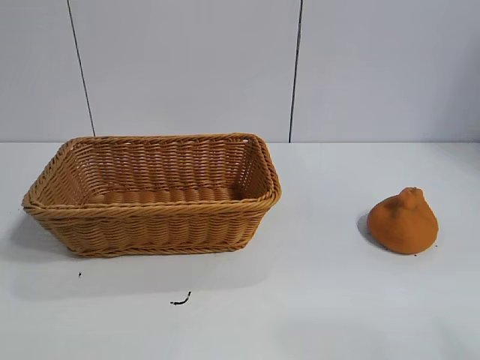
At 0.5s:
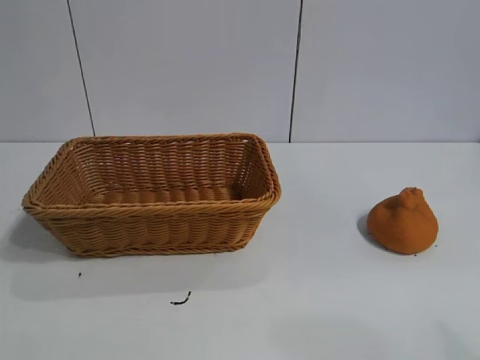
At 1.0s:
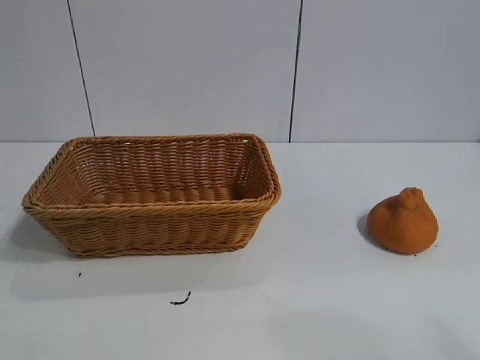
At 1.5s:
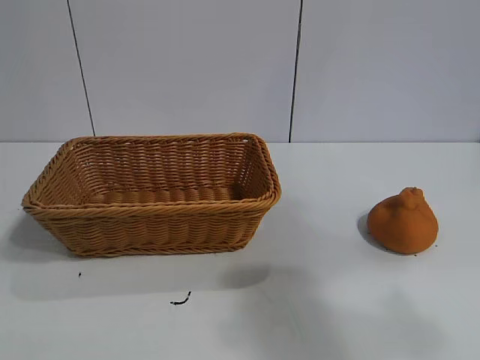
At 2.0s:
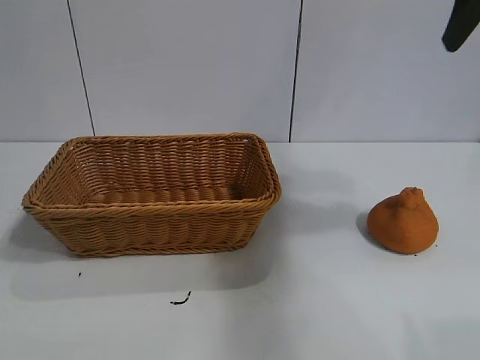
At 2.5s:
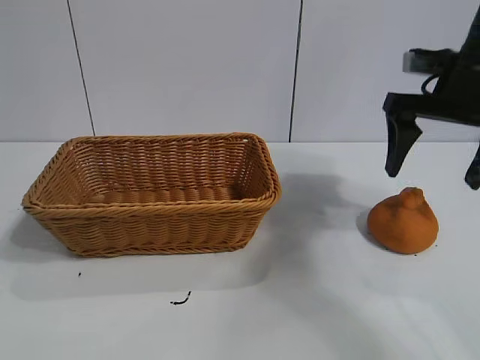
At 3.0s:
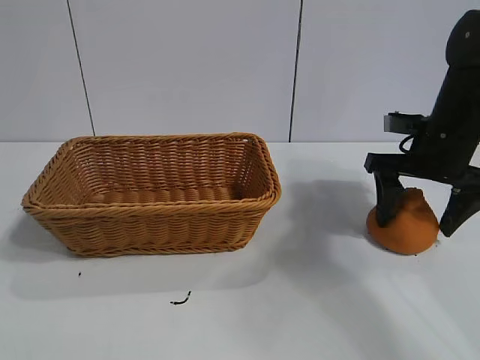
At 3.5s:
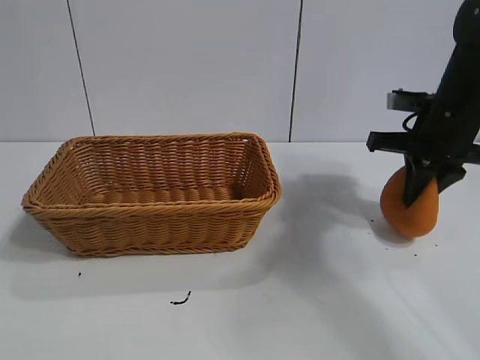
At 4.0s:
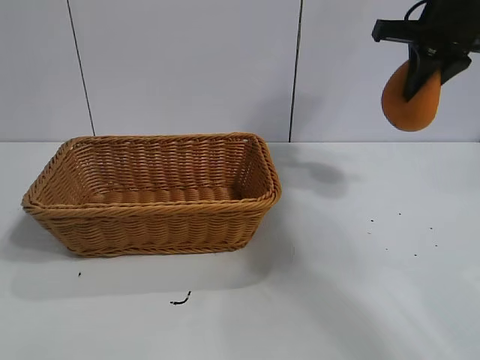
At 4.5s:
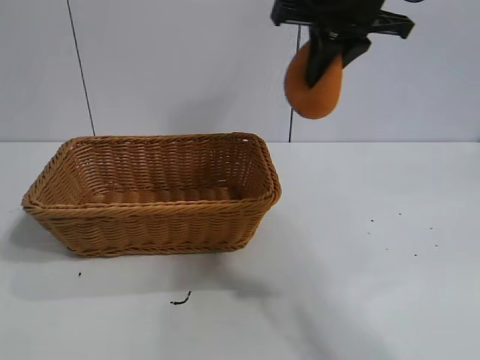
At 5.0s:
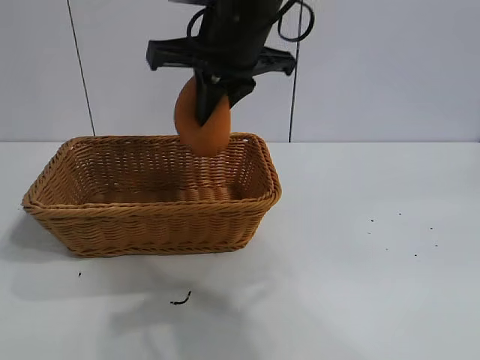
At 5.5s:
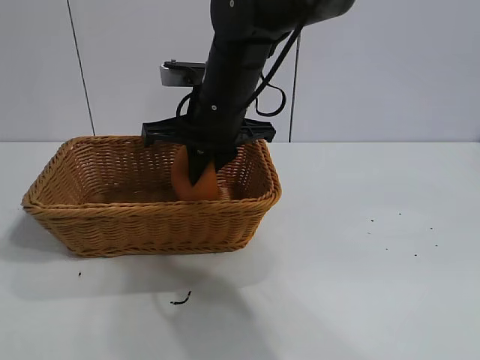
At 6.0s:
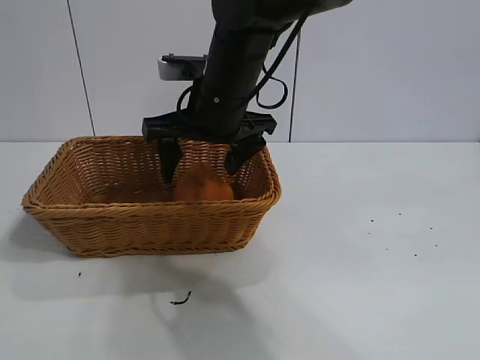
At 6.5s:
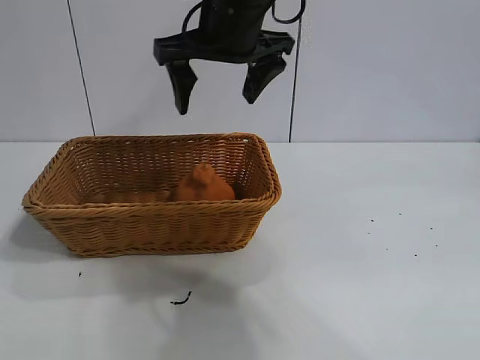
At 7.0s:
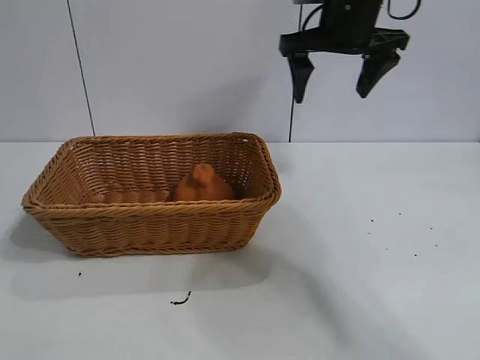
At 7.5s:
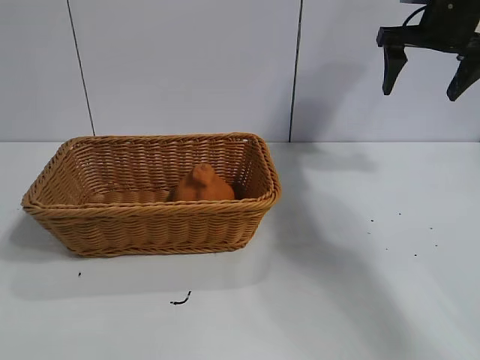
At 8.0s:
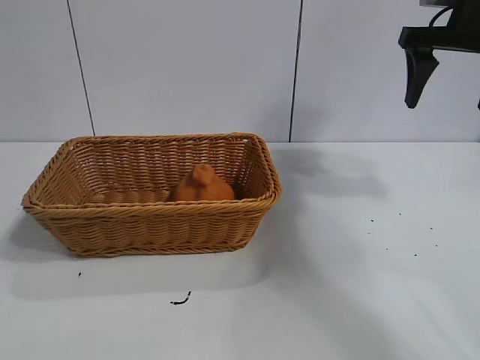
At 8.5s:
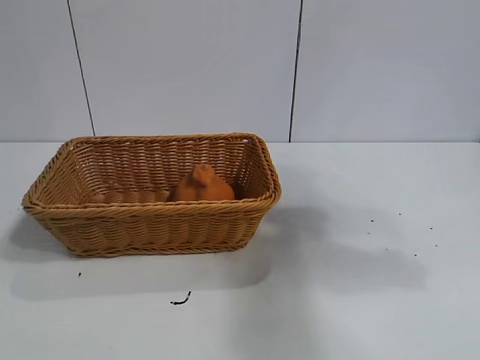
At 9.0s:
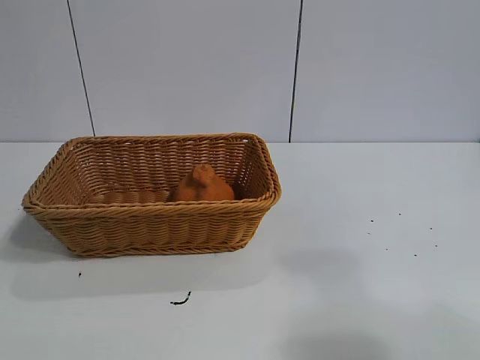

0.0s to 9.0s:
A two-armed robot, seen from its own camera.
Task of the whole recording: pick up the orange and put it into the basket.
Step, 1.0s to 3.0s: Grasp the orange with right gripper.
Step, 3.5s to 6.0s: Place the orange in the basket with right gripper.

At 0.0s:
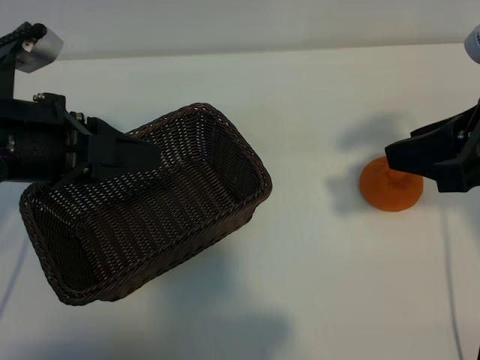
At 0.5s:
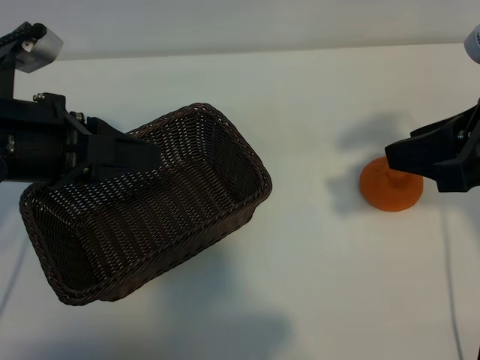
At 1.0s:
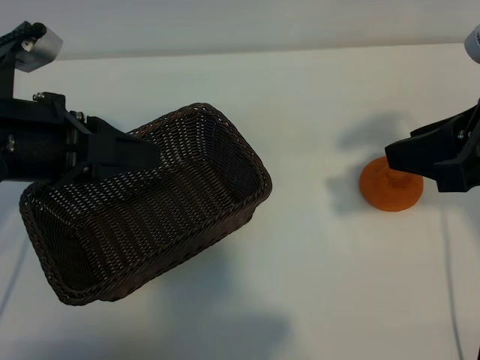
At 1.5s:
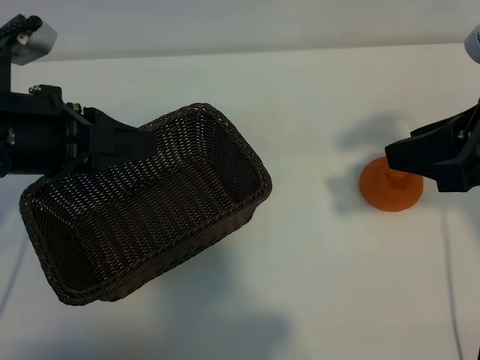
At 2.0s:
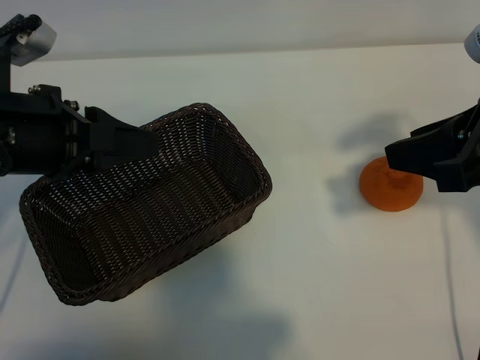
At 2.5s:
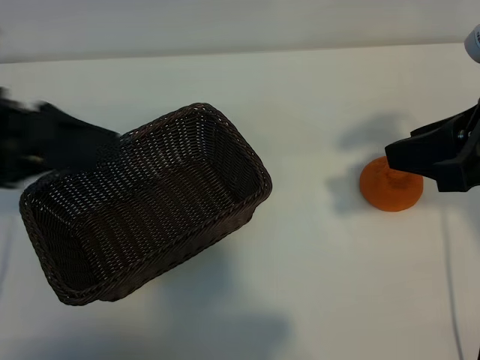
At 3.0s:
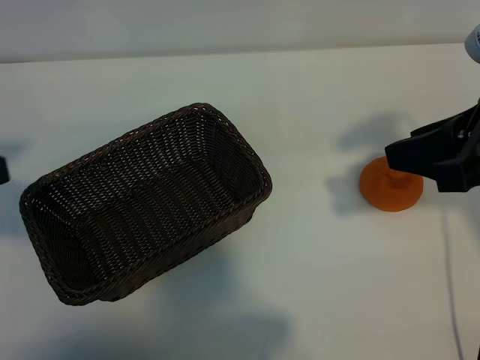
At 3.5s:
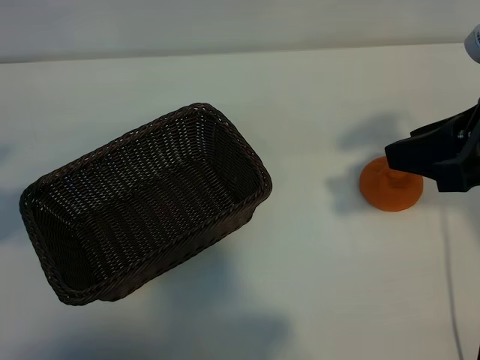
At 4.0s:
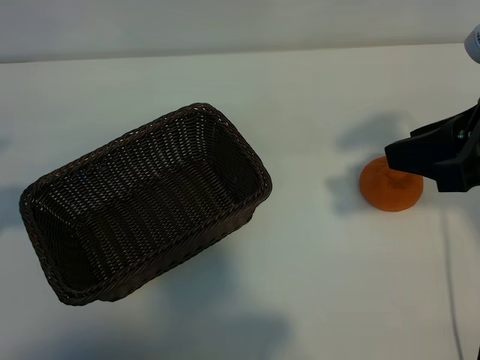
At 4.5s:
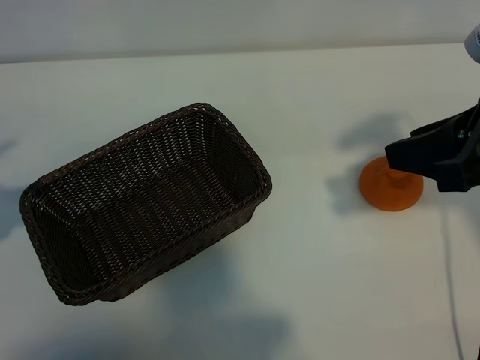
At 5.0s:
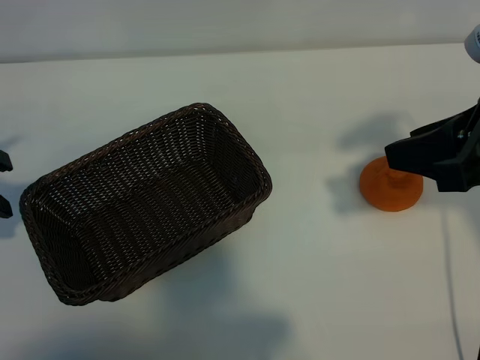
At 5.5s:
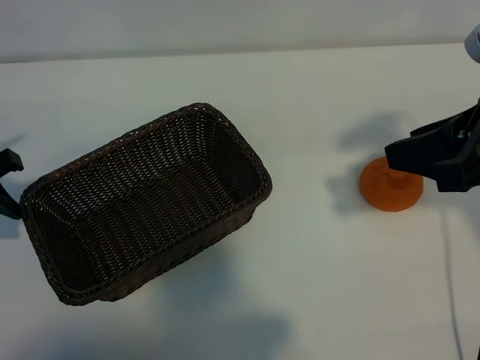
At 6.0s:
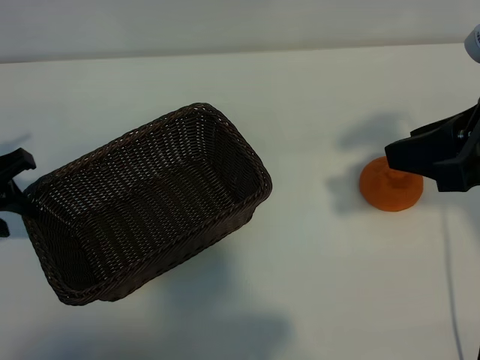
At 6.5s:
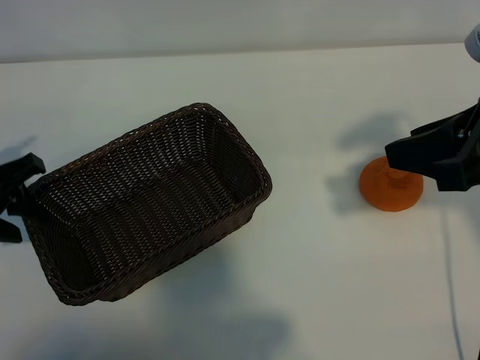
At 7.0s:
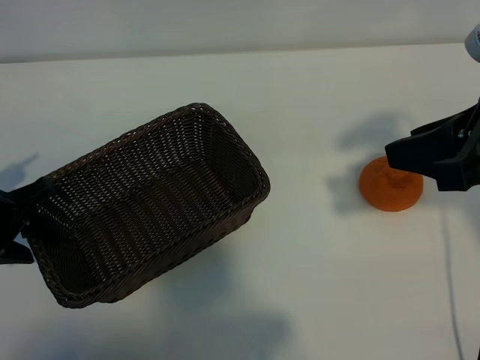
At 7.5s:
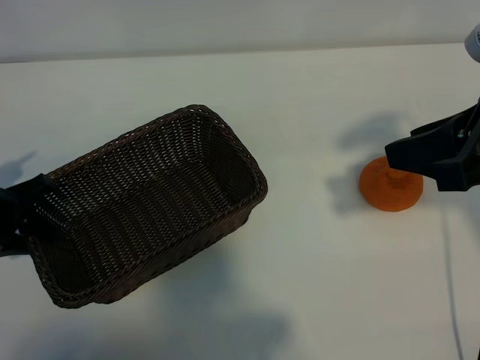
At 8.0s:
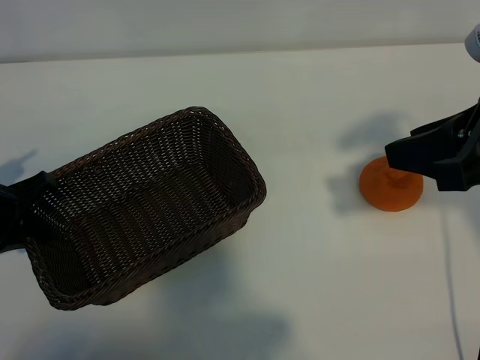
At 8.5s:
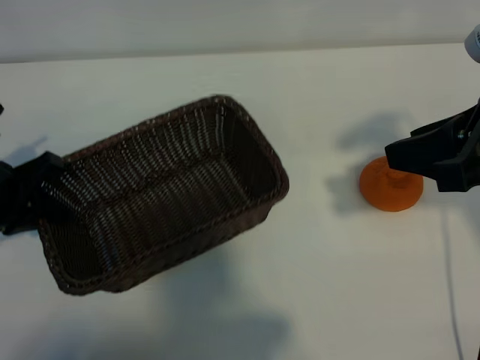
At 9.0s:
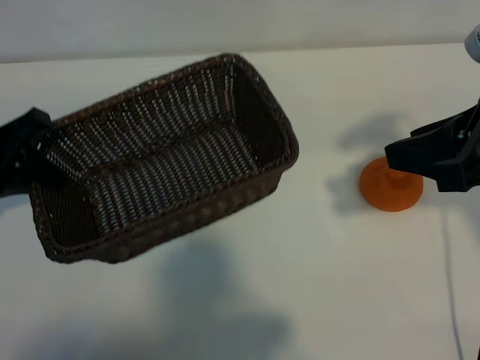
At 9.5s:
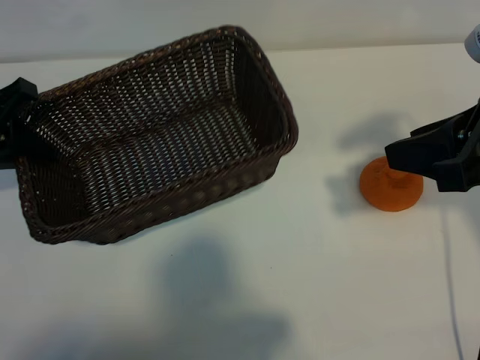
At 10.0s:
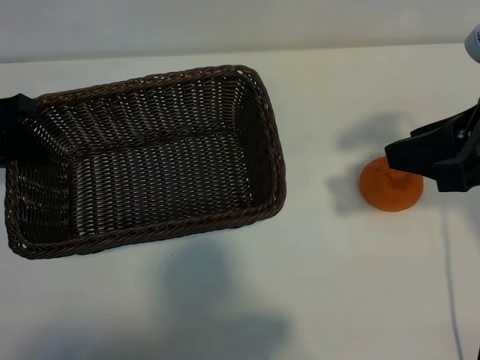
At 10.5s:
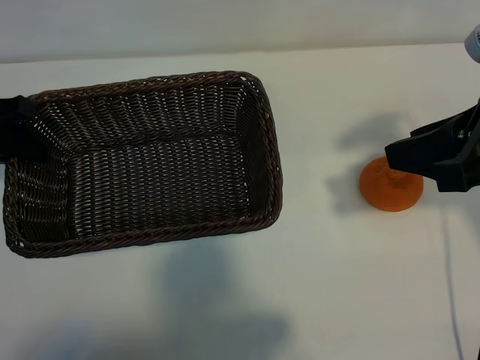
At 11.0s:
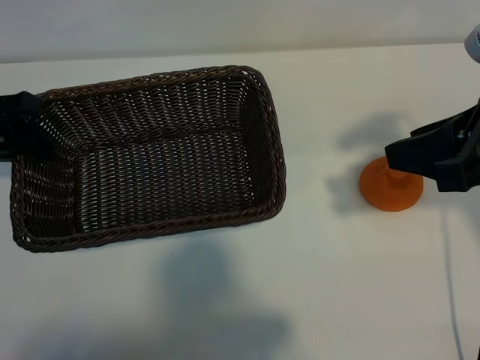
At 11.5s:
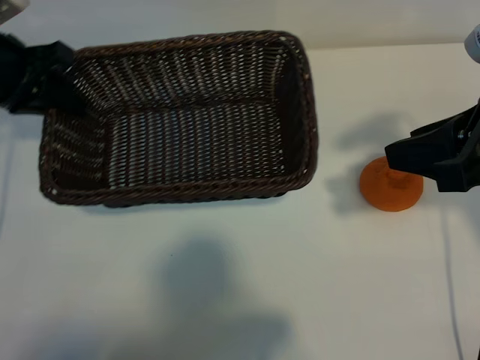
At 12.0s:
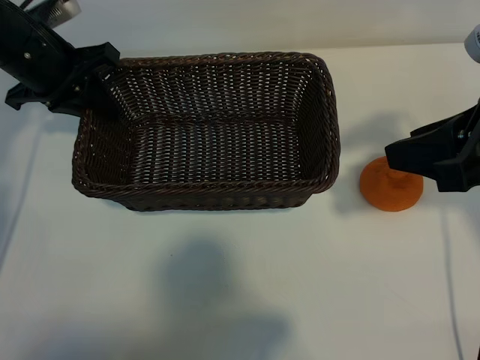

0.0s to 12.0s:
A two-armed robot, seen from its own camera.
Task of the whole recording: pick up the orange and put it into the basket.
Step, 1.0s to 7.5s: Grasp the basket with left gripper.

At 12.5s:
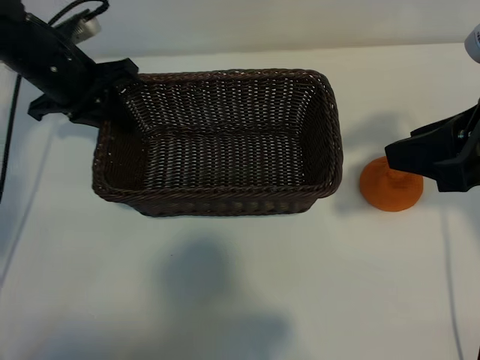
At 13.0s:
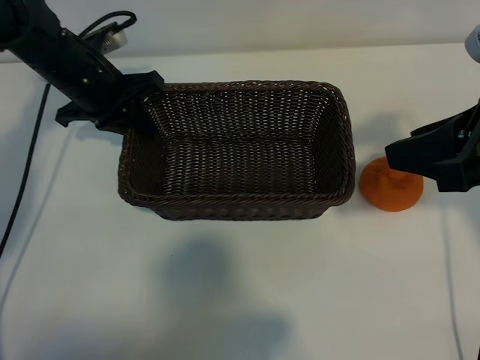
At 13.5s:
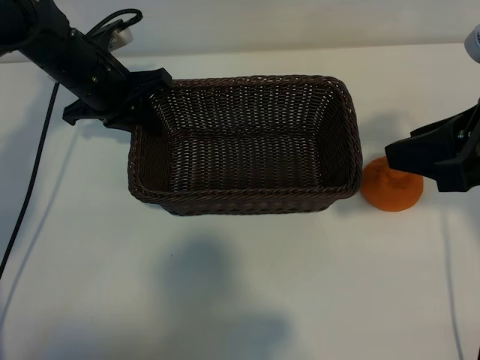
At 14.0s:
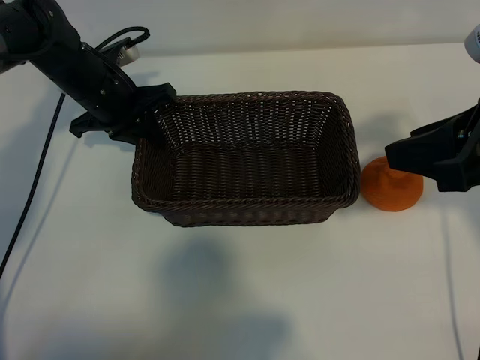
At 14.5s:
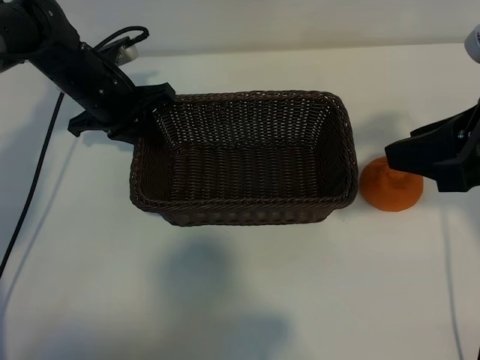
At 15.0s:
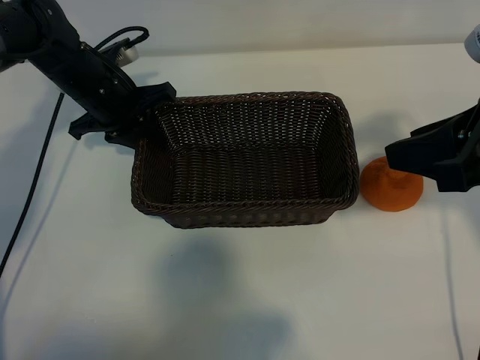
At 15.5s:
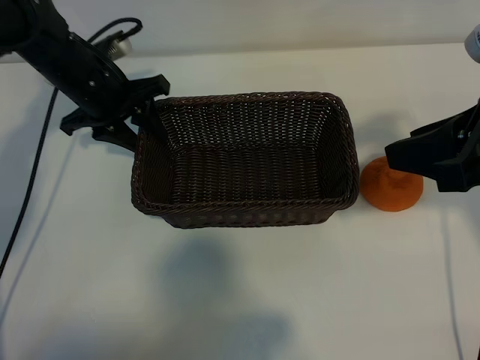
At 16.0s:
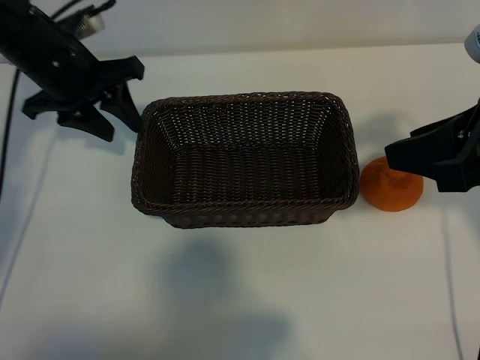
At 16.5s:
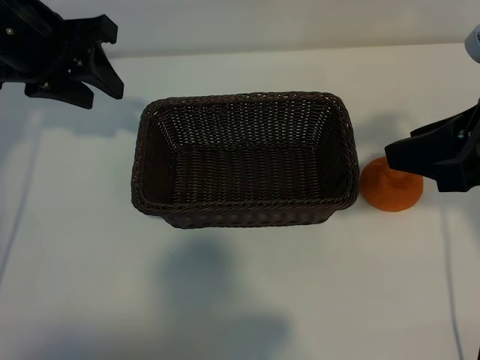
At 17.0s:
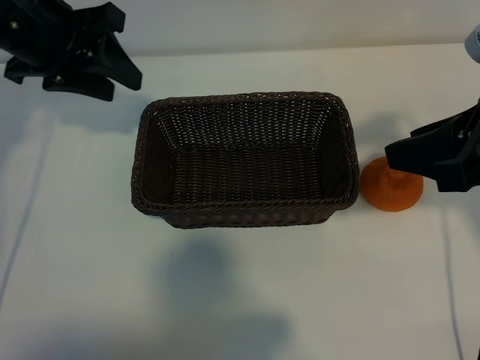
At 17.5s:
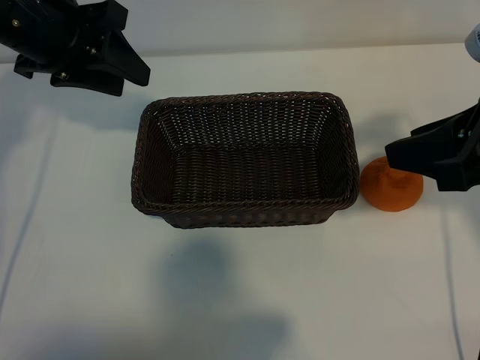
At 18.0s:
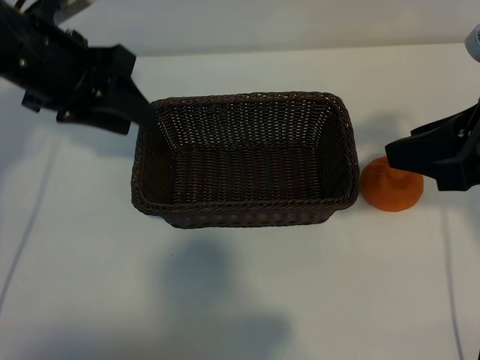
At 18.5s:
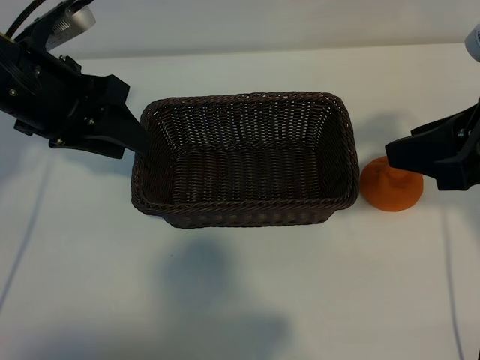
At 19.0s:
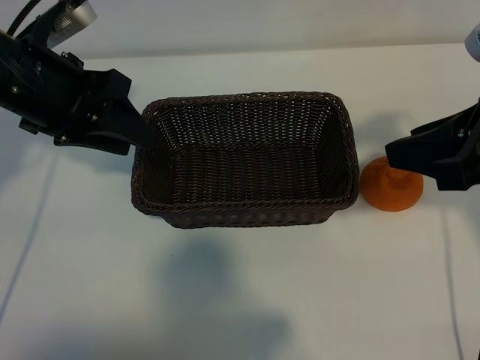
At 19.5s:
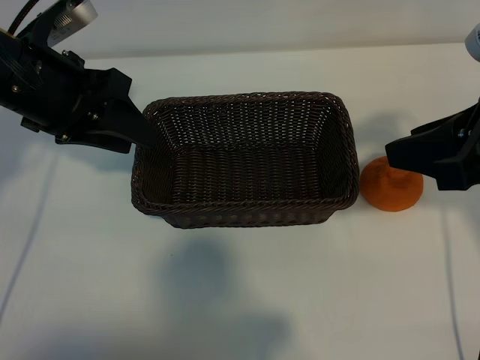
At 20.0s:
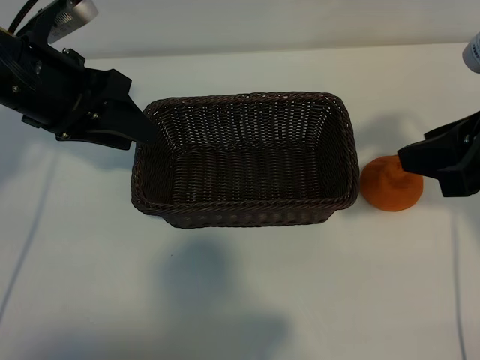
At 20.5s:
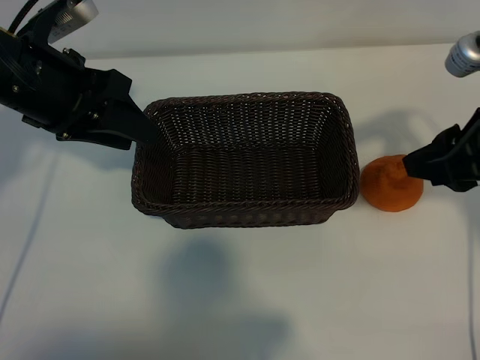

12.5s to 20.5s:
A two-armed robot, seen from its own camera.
Task of the whole recording: pick up the orange and put it into the basket.
Step, 12.5s to 15.0s: Place the basket in the center of view with left gripper.
